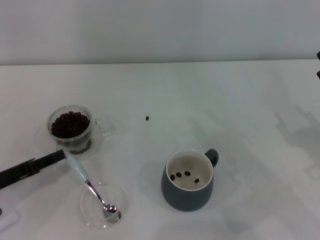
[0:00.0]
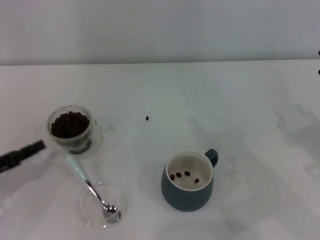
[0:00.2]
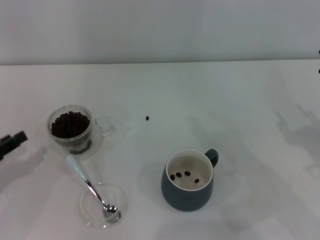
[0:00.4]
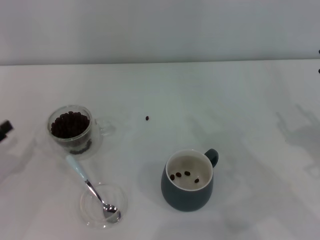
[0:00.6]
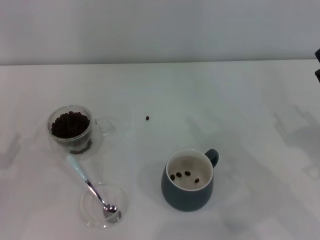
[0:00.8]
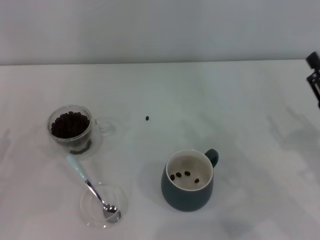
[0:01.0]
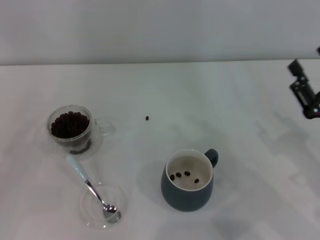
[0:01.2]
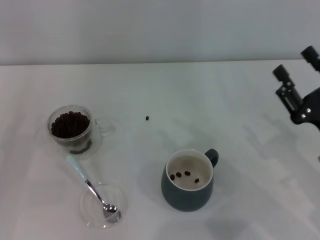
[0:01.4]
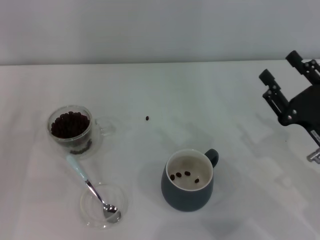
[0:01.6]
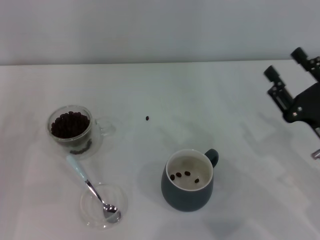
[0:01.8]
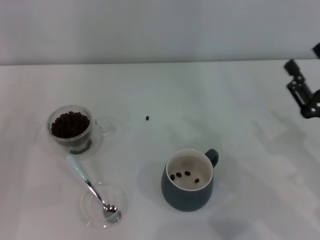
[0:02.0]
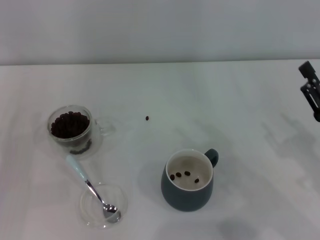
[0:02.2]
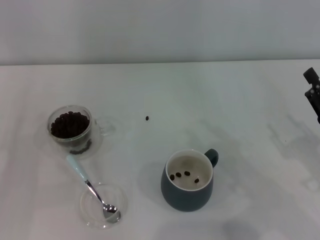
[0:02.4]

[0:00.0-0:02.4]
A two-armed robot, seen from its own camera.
Task of the whole recording: Use a blue spoon to take out the coffee beans from the glass and pour them into the gray cup.
0:00.0 to 0:01.2: The left gripper moves to the left, some 5 cm.
0:01.2 to 0:02.4: The grippers make only small movements.
